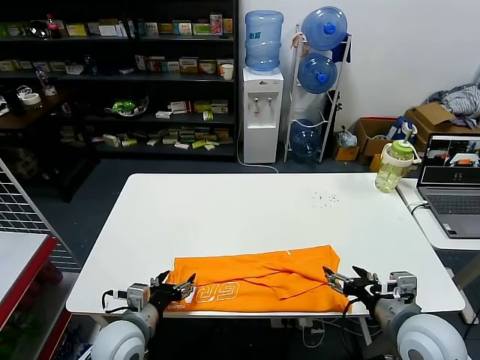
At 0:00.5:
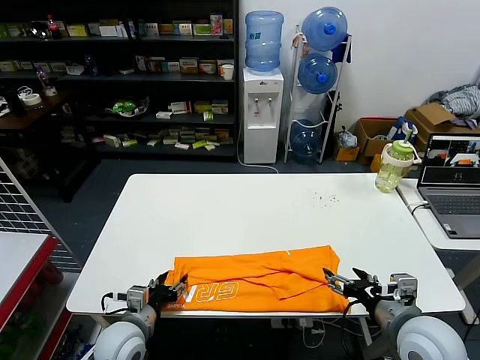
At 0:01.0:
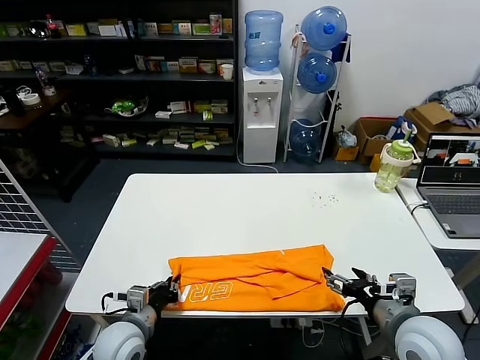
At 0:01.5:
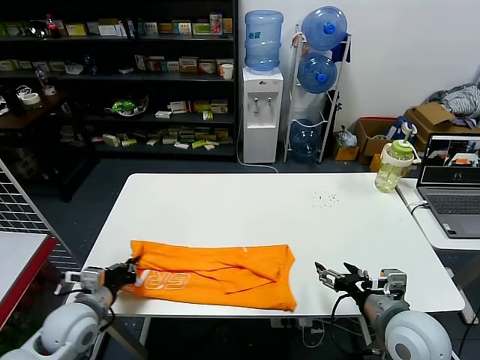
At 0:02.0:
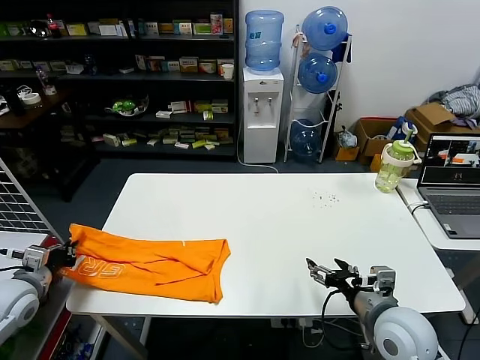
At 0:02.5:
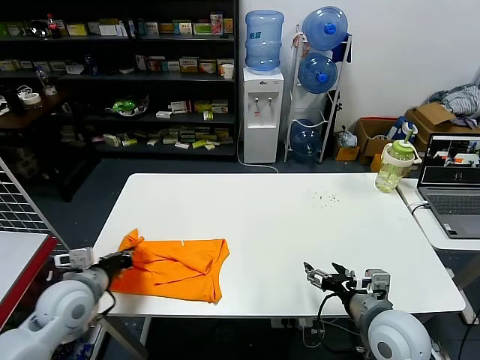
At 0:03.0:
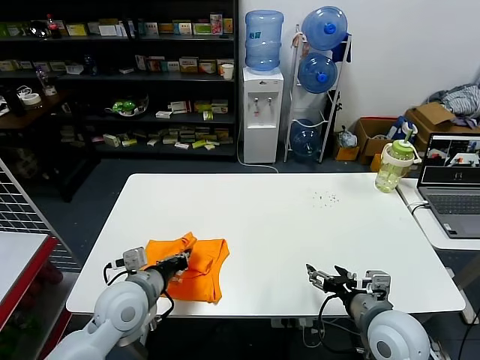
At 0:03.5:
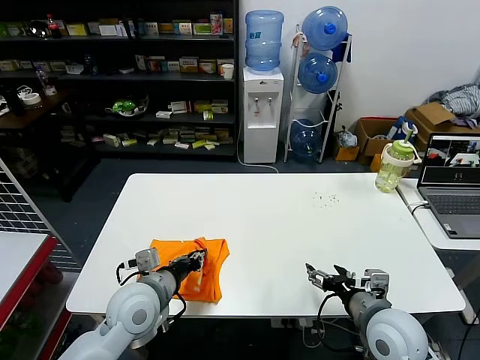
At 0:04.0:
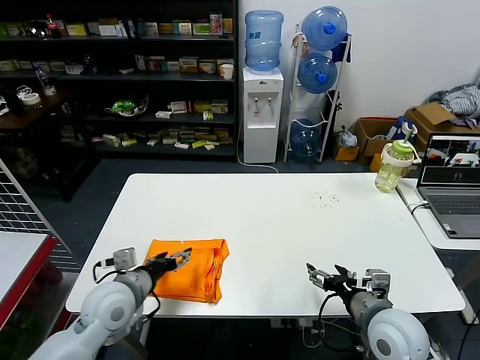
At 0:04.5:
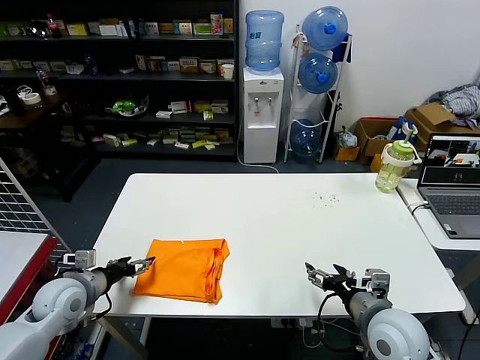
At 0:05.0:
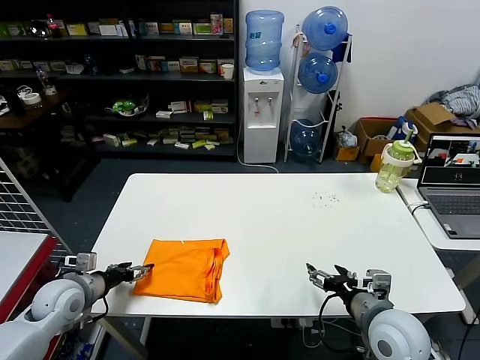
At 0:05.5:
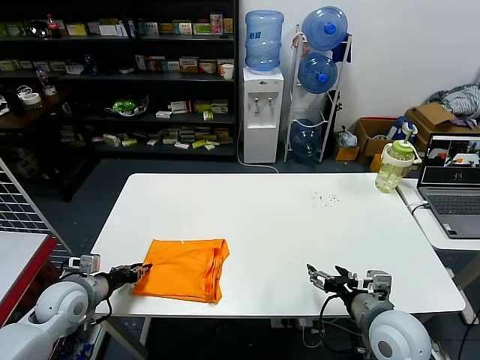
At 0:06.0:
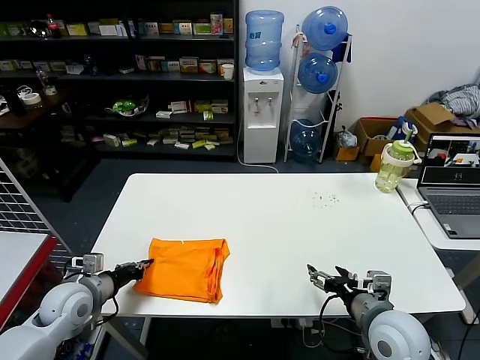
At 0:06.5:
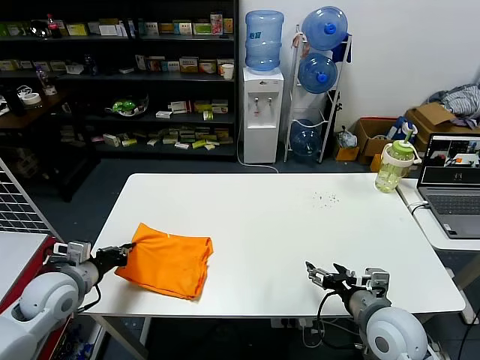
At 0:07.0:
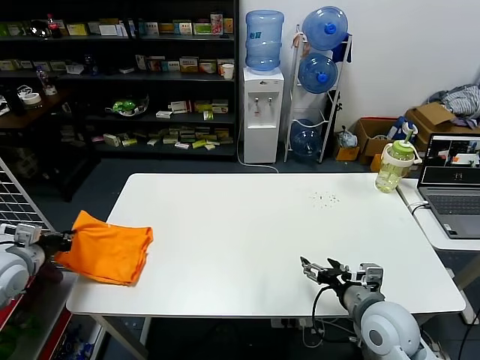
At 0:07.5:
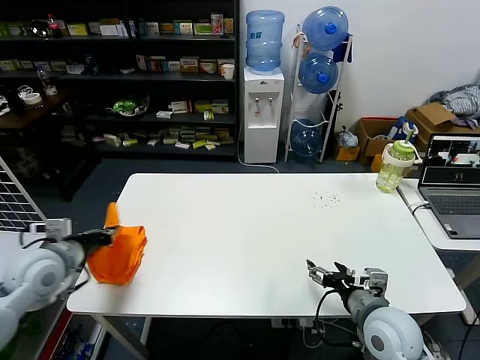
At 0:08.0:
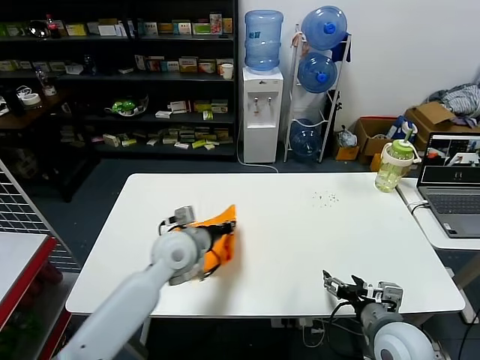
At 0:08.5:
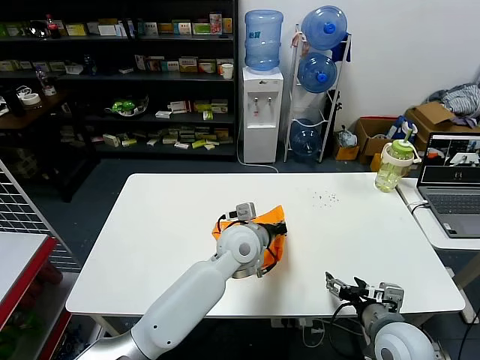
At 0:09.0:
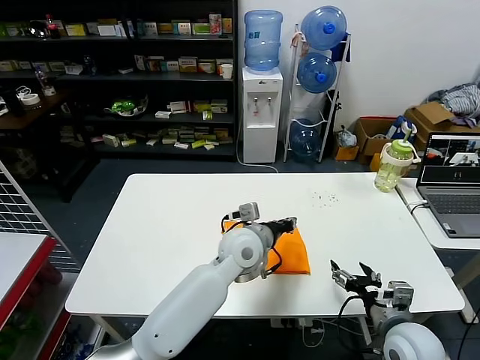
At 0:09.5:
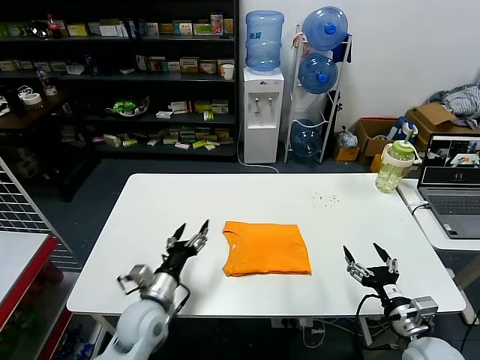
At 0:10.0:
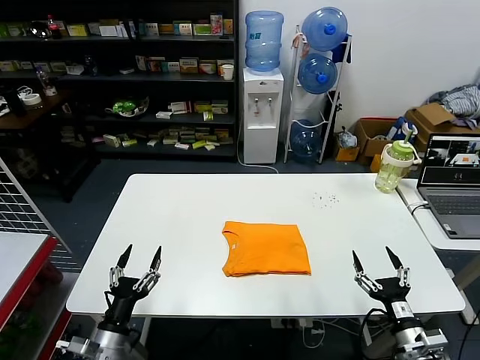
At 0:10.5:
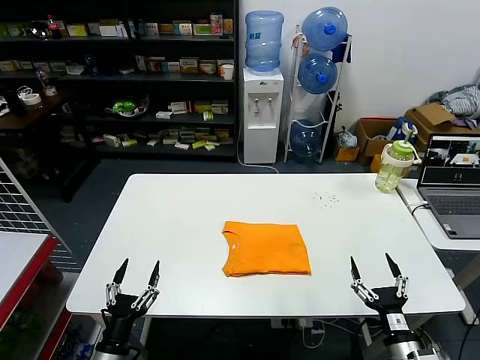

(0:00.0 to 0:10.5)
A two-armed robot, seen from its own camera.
Task of the whole recording: fold and organize the clothes.
Step, 0:01.0 - 0:03.5: use the left gripper to drag the left edge of the fabric to the left and folds it over the right edge.
Step, 0:04.0 - 0:08.5: Flip the folded clothes over with left gripper.
0:00.0 - 0:02.0: The left gripper shifts some 20 cm to the left, and closes.
0:02.0 - 0:04.0: The left gripper goes approximately 20 cm to the right, and opens up.
0:04.0 - 0:06.5: The left gripper is displaced to the left by approximately 15 cm, and closes.
0:06.5 - 0:08.5: The left gripper is displaced to the right by some 35 cm.
0:08.5 - 0:10.5: The left gripper heads to the left, backward and downward, covering approximately 40 cm, and opens. The right gripper goes roughly 10 cm backward and downward.
